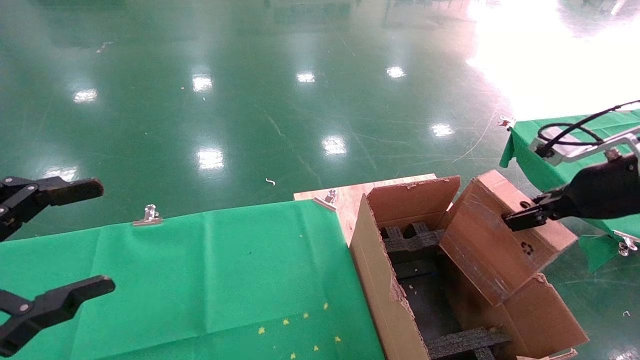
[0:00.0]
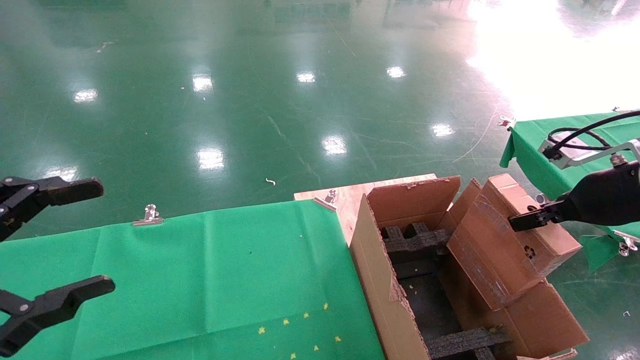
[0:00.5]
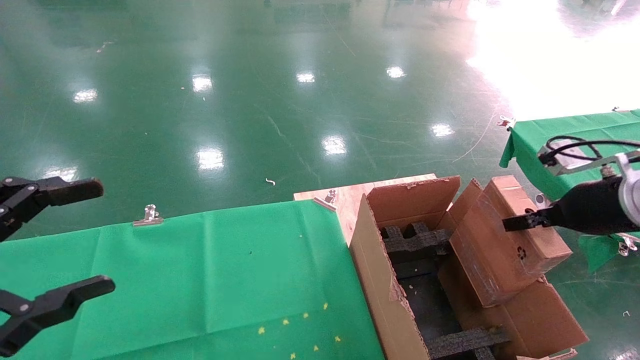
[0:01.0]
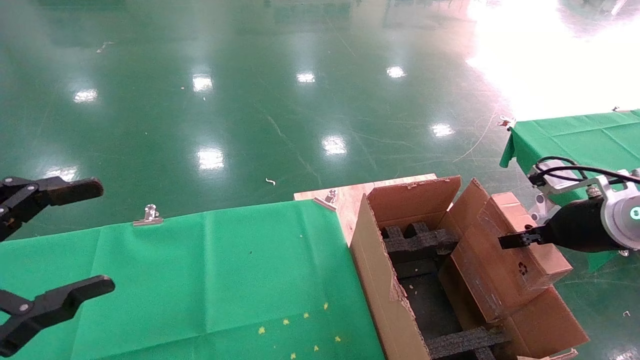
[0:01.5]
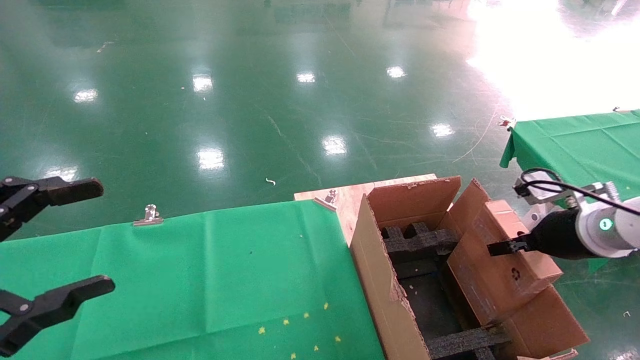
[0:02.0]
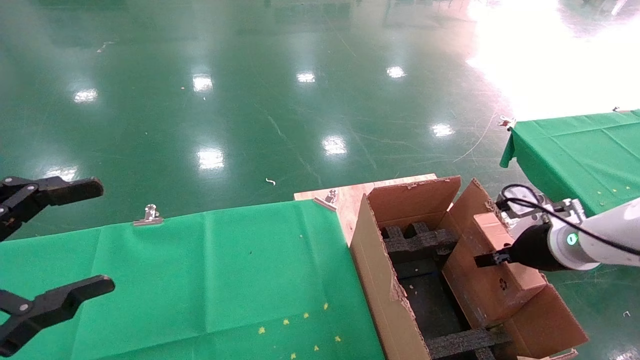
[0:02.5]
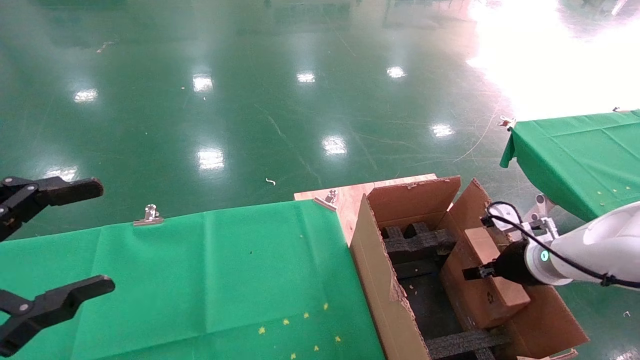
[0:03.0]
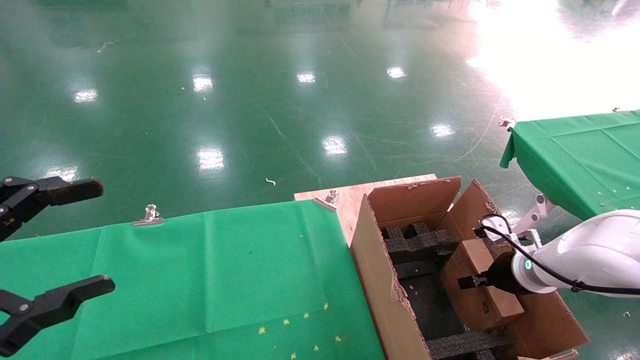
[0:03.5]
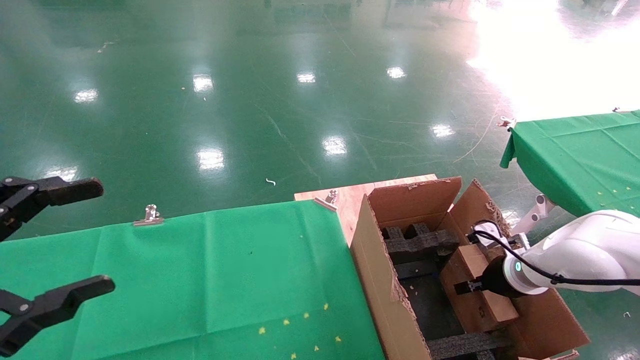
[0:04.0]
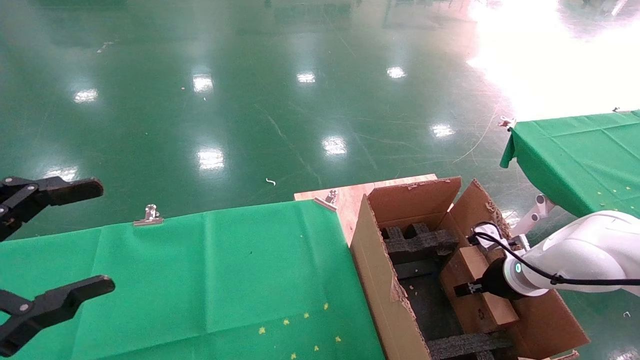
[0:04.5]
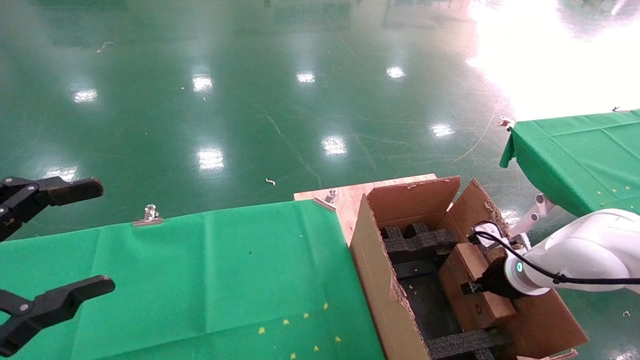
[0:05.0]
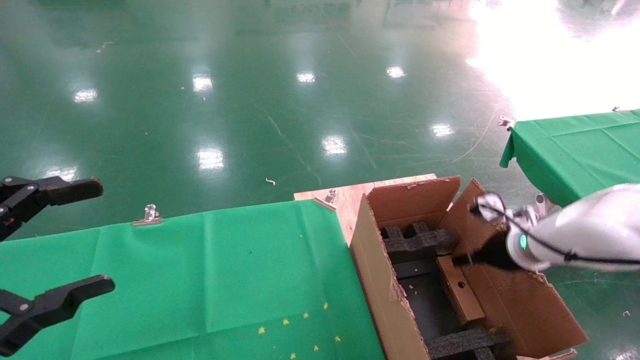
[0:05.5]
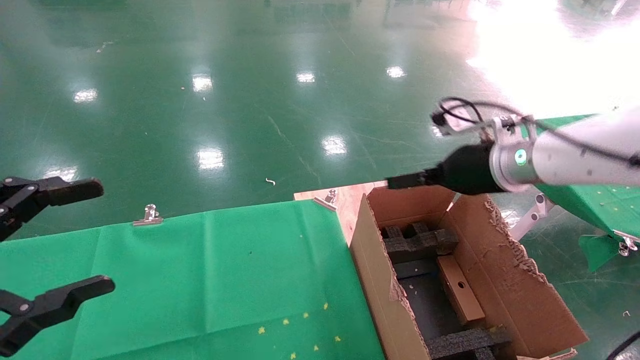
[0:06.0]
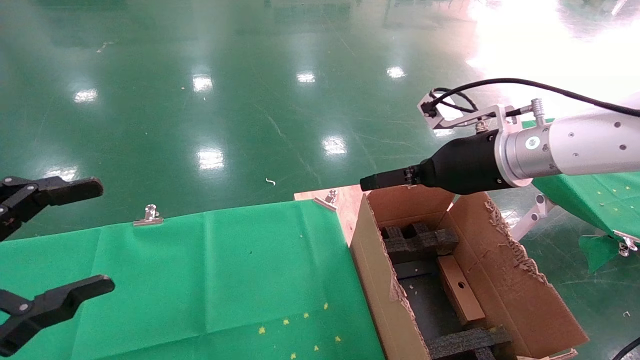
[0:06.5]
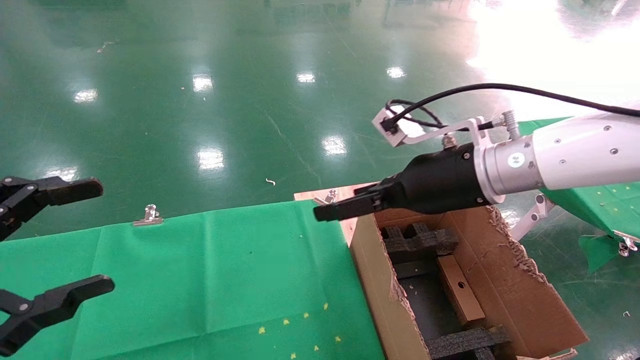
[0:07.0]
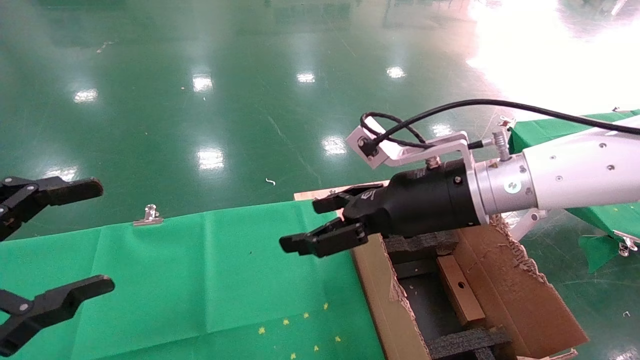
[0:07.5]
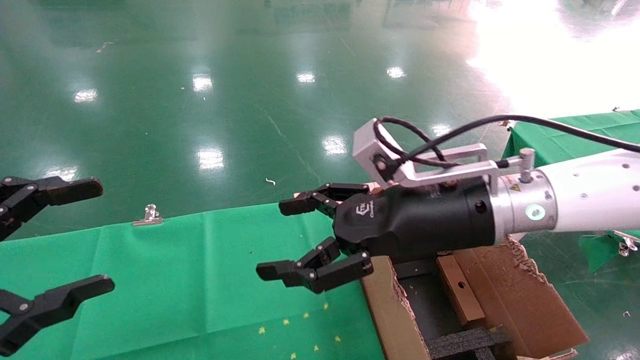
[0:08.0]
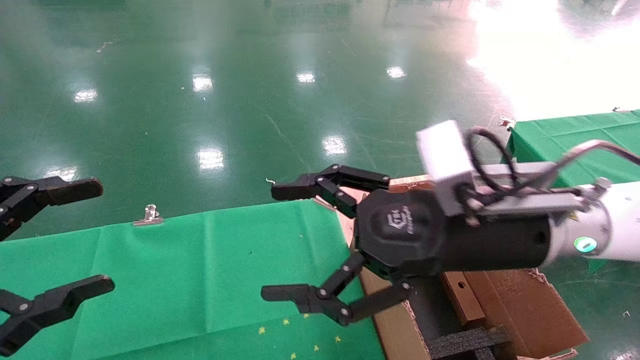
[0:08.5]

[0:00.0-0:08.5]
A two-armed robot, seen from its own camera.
Task of the whole recording: using a robotic arm to pick up a cardboard box and palace it the carton.
Step, 0:00.0 to 0:05.5: Place the mouse and the power cord paper box into the container.
0:00.0 to 0:02.0: The right gripper moves downward, some 10 cm.
0:02.0 to 0:04.0: The right gripper moves downward and forward, about 15 cm.
0:04.0 to 0:06.5: The right gripper goes approximately 25 cm upward and to the left, and opens up.
0:06.5 to 0:08.5: The right gripper heads backward and to the left, covering roughly 10 cm.
